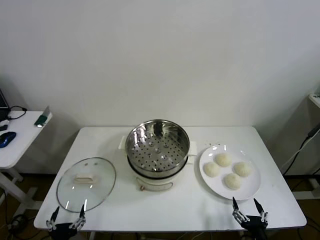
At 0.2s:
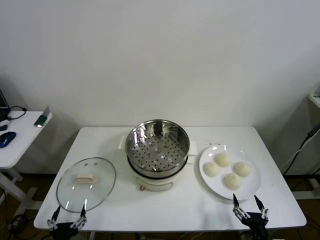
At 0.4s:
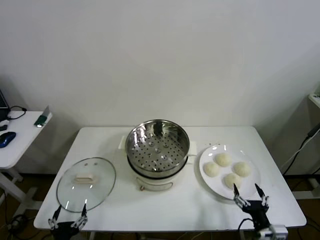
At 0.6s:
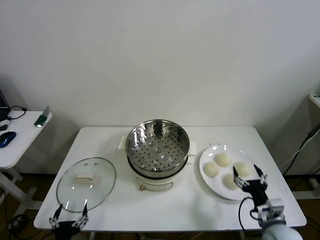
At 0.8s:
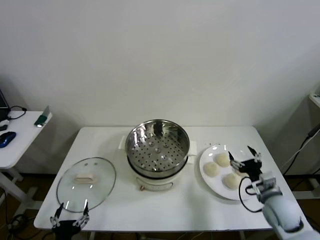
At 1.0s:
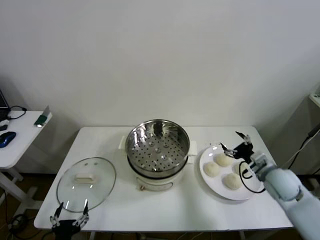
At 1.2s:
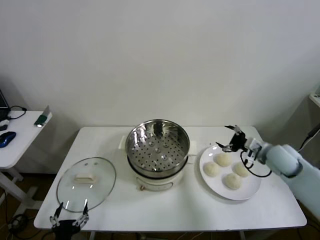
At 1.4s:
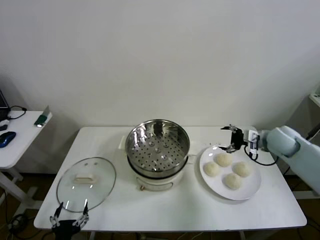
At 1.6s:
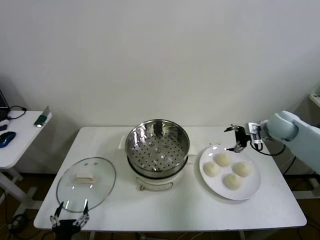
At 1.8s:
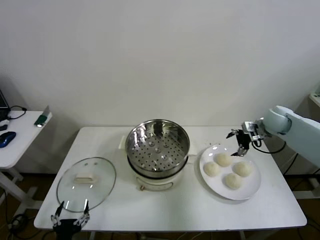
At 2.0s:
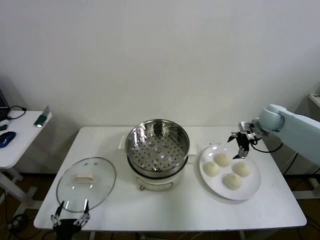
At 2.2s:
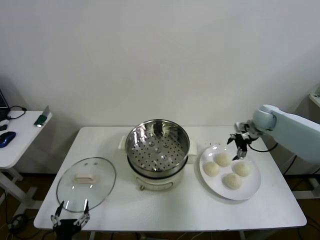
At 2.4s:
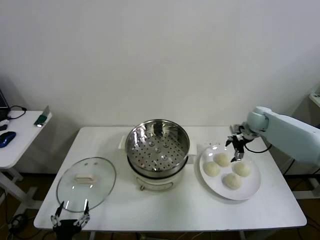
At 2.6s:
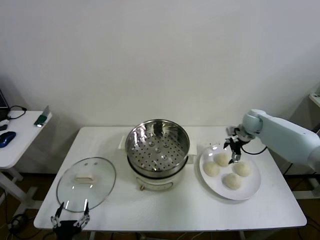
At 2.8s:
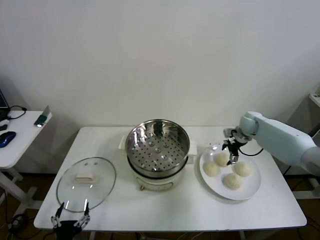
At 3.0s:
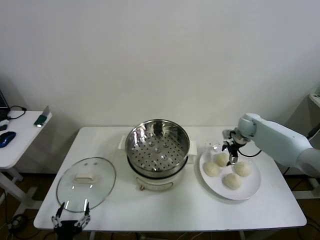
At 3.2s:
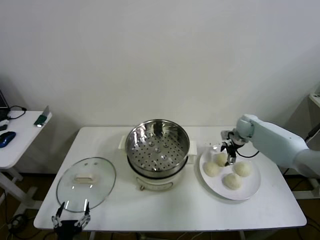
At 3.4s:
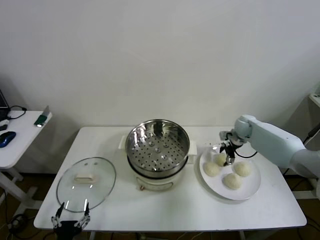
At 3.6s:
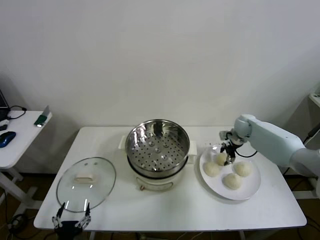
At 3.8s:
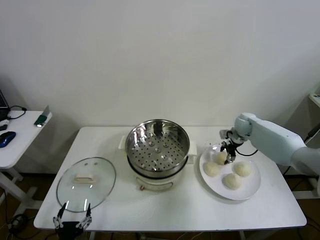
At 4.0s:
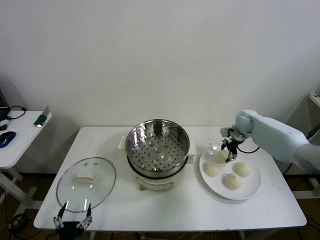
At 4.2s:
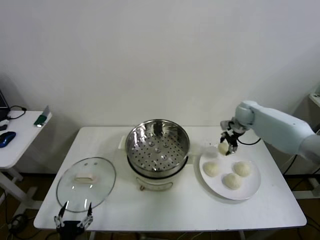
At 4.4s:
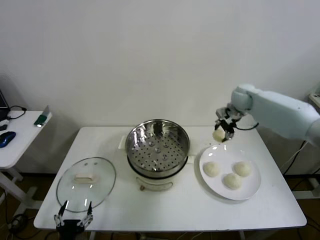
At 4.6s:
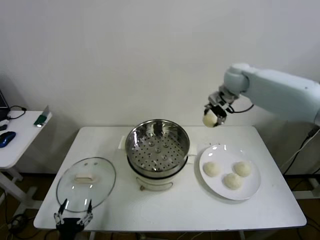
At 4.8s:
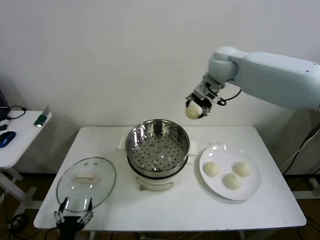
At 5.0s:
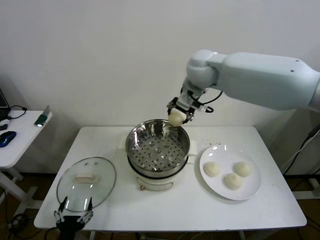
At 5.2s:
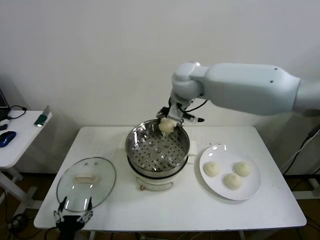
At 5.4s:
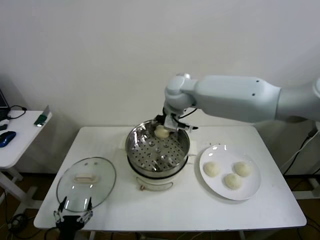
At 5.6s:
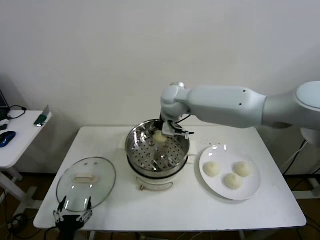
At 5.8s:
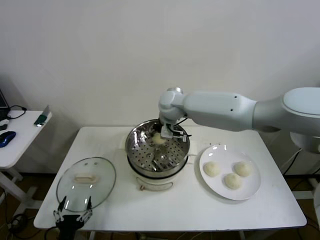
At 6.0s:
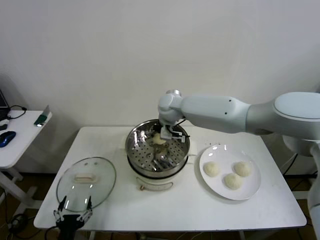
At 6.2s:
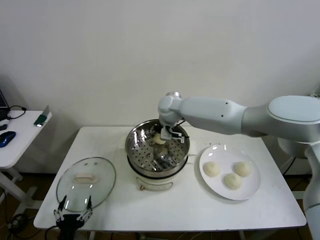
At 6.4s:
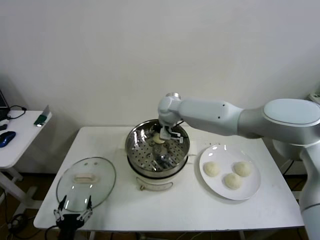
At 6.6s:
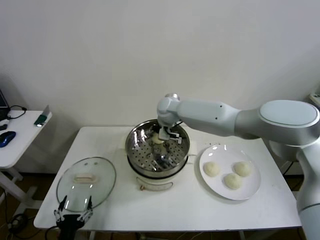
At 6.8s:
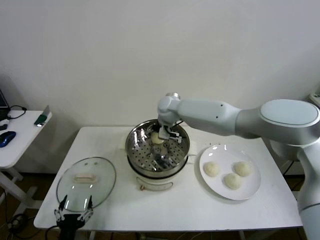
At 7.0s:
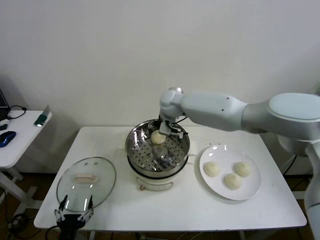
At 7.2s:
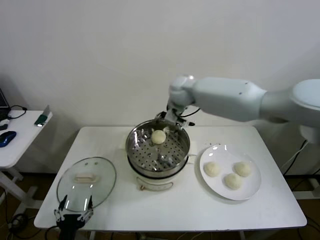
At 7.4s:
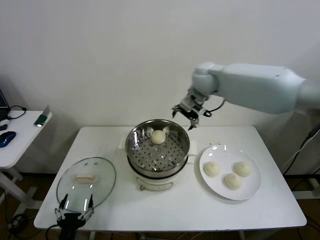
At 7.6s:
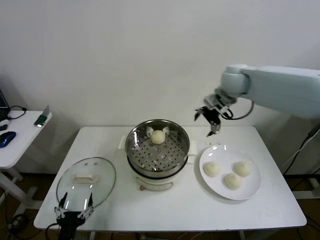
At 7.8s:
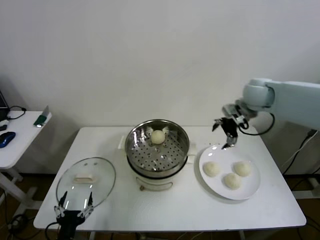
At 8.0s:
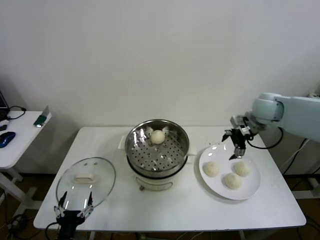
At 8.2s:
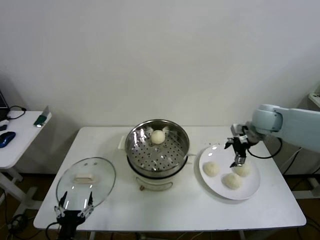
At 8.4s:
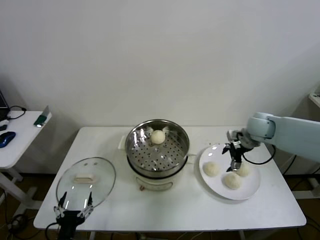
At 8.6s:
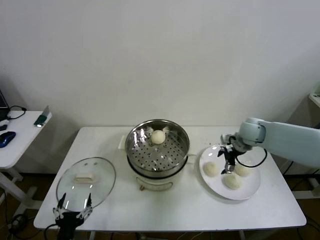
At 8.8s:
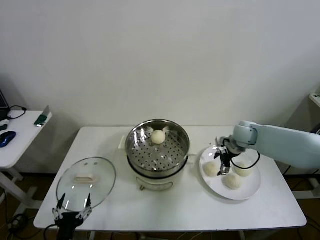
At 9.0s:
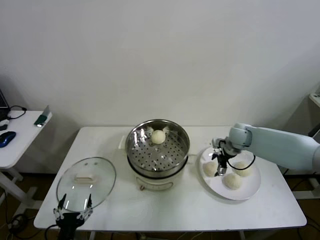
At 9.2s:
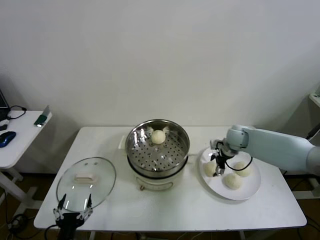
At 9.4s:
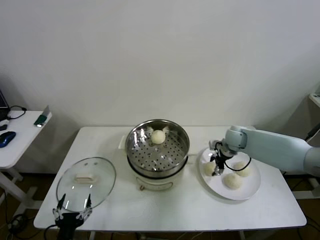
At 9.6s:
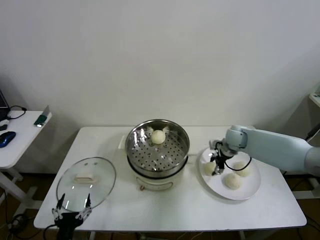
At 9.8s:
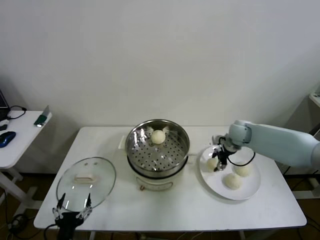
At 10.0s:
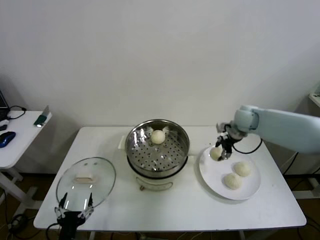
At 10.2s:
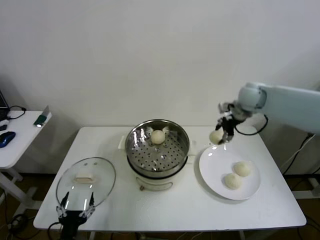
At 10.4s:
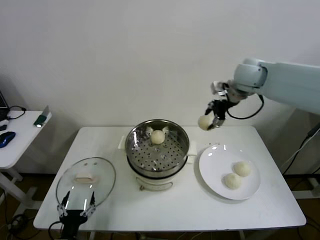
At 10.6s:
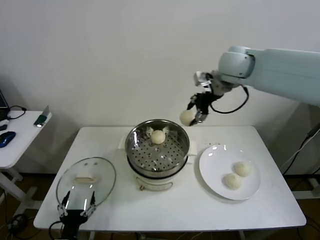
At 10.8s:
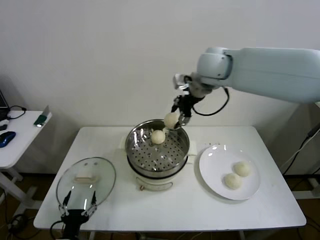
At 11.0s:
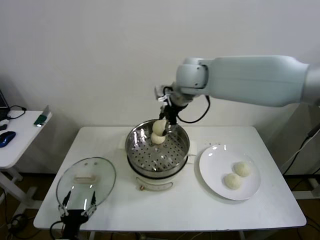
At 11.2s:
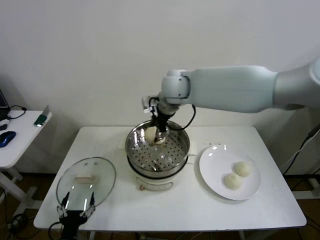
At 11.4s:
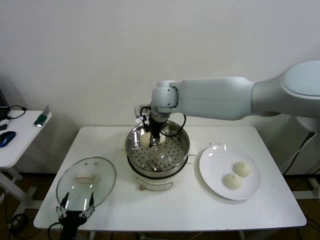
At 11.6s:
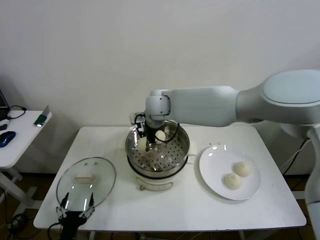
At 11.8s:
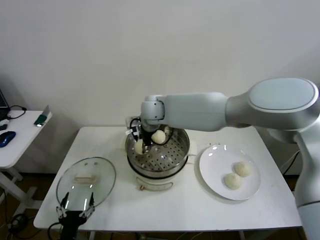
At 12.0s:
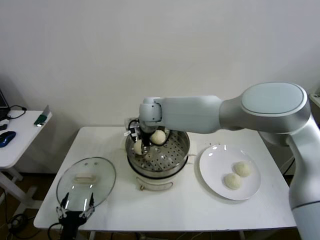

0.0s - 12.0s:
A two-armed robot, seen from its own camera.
Step, 0.0s - 3.4s: Grasp the baozi in the plate with right gripper.
Step, 3.6s - 7.0s: Place the baozi on the steamer with right gripper.
Step, 7.2s - 9.6s: Grasp the baozi in the plate with right gripper.
1.6s - 3.0s: The right gripper goes some 10 cm downward and forward.
3.0s - 4.4s: The right gripper travels upward and to the left by roughly 20 cm, and closes up.
4.4s - 6.0s: The right gripper shifts about 25 cm to the left.
6.0s - 7.6s: The right gripper shifts about 25 cm to the right, and opens its fingers.
7.6s - 9.0s: The right gripper goes approximately 20 cm downward.
9.0s - 10.4s: The right gripper is displaced upward by roughly 30 cm, and closes.
10.4s - 12.0s: The right gripper travels to the left and downward by roughly 30 cm.

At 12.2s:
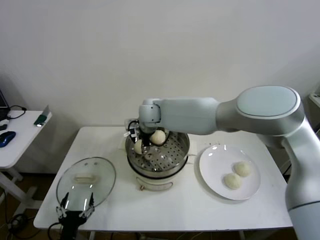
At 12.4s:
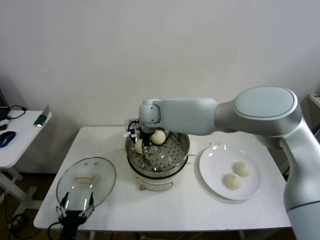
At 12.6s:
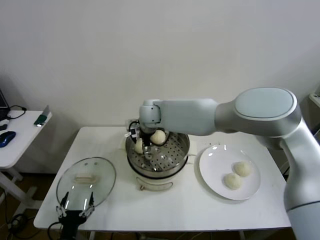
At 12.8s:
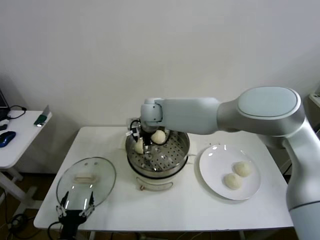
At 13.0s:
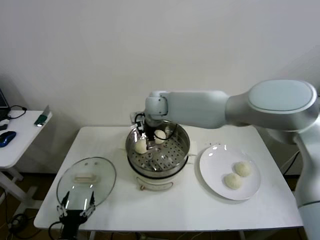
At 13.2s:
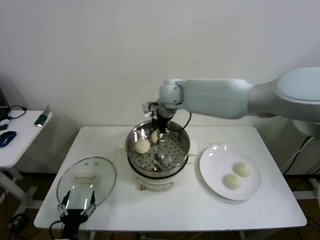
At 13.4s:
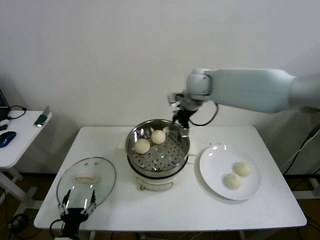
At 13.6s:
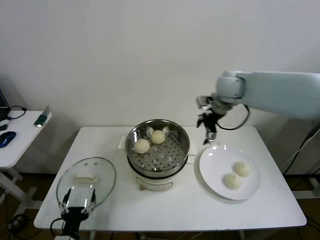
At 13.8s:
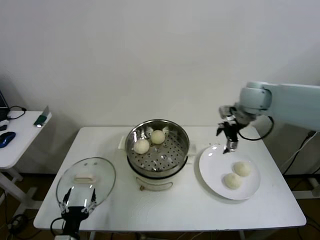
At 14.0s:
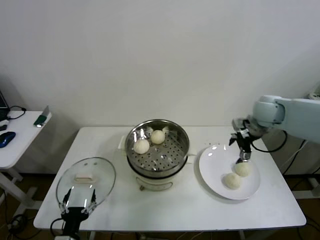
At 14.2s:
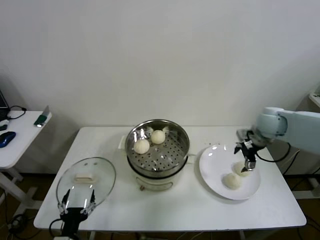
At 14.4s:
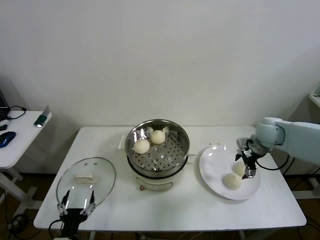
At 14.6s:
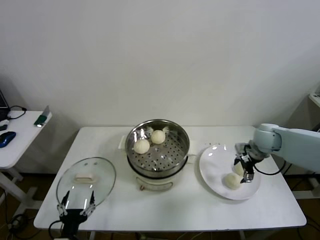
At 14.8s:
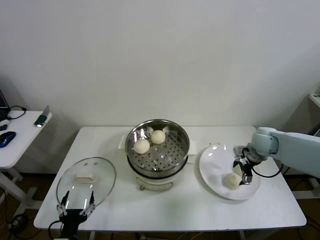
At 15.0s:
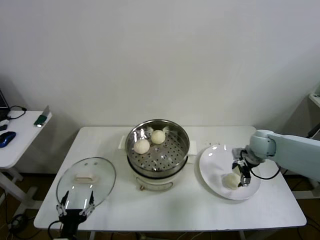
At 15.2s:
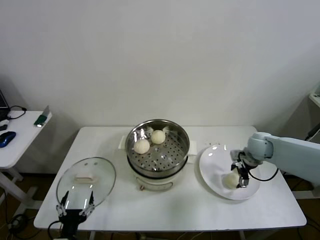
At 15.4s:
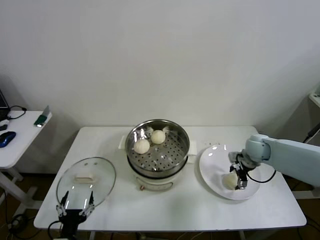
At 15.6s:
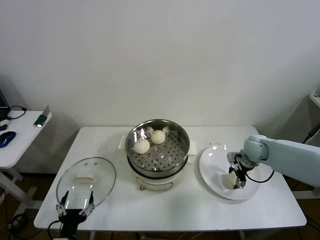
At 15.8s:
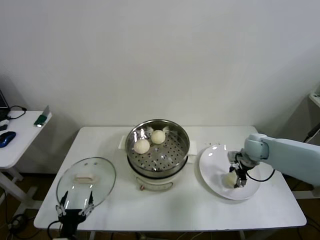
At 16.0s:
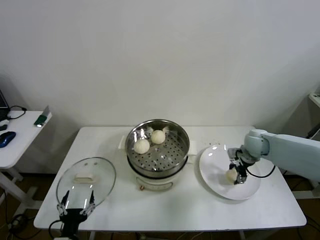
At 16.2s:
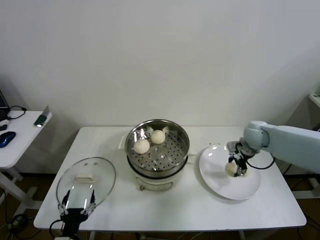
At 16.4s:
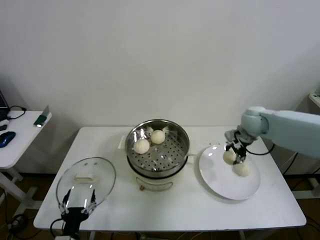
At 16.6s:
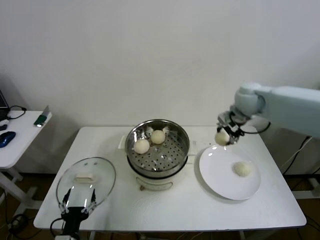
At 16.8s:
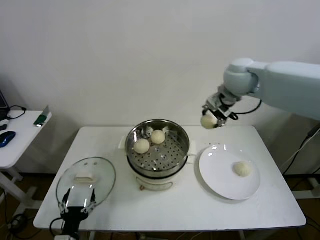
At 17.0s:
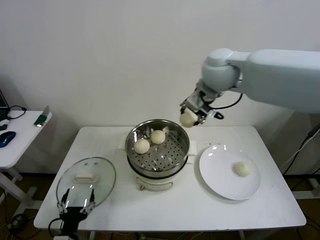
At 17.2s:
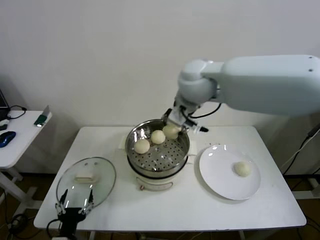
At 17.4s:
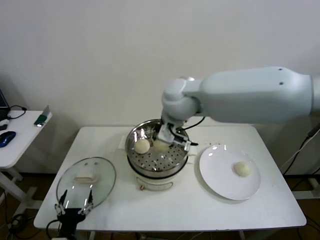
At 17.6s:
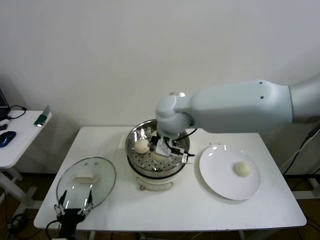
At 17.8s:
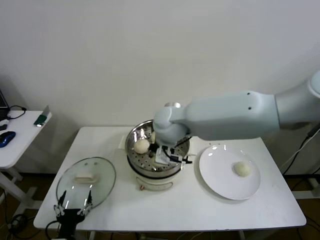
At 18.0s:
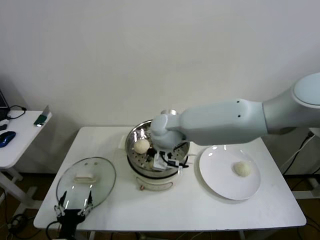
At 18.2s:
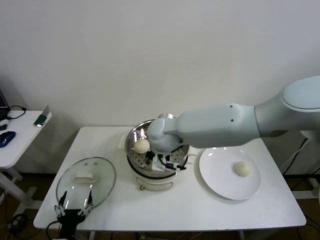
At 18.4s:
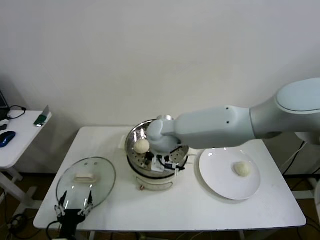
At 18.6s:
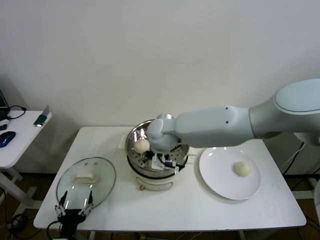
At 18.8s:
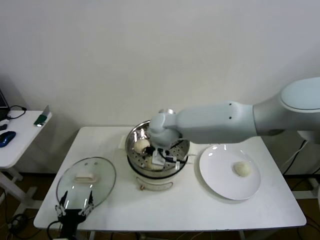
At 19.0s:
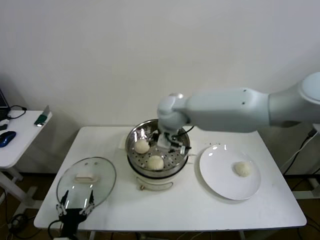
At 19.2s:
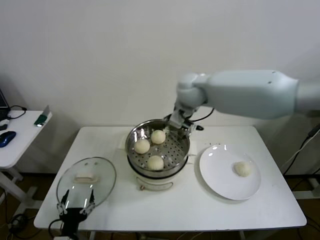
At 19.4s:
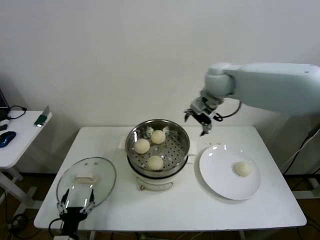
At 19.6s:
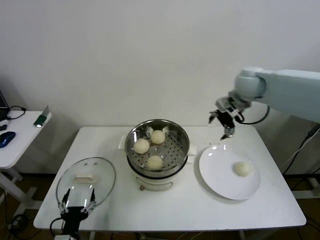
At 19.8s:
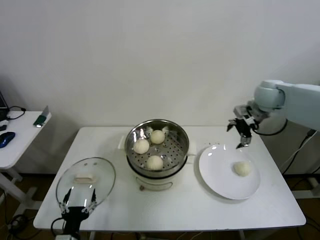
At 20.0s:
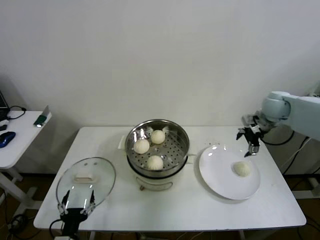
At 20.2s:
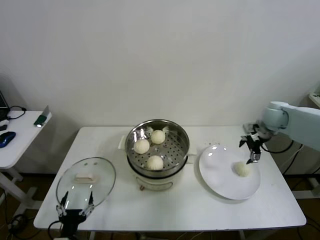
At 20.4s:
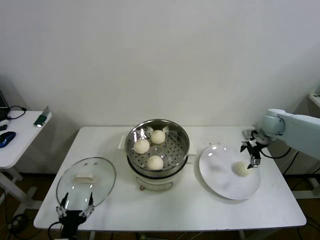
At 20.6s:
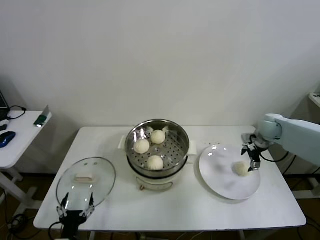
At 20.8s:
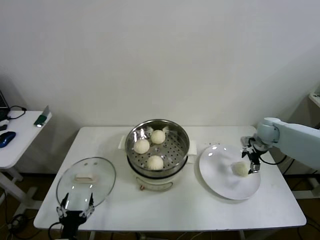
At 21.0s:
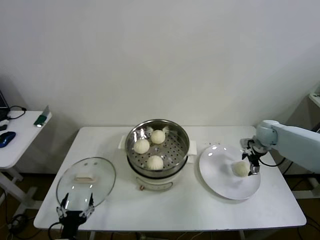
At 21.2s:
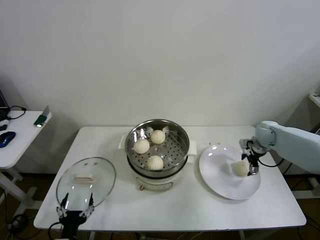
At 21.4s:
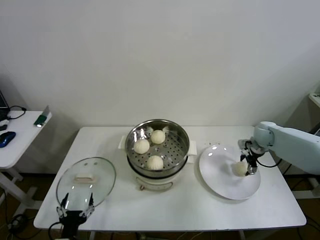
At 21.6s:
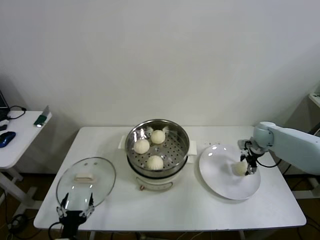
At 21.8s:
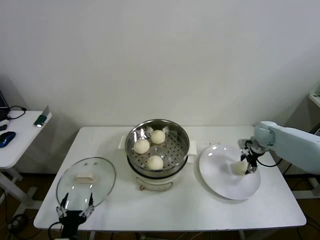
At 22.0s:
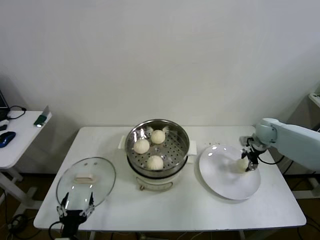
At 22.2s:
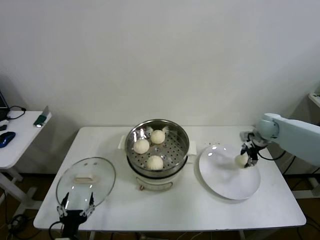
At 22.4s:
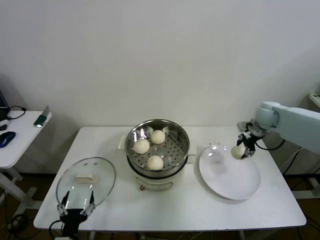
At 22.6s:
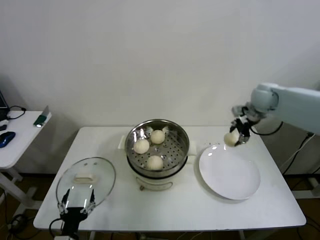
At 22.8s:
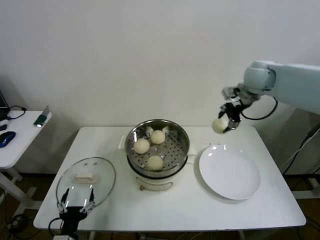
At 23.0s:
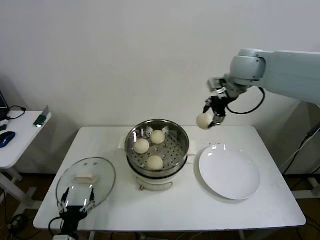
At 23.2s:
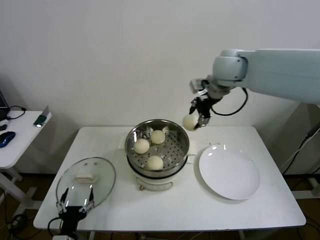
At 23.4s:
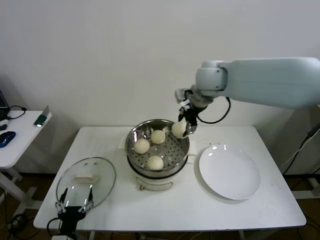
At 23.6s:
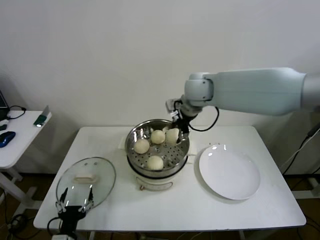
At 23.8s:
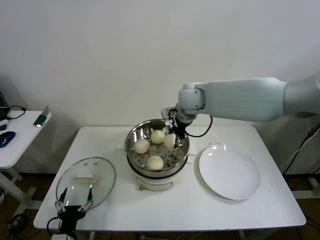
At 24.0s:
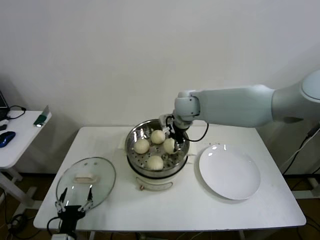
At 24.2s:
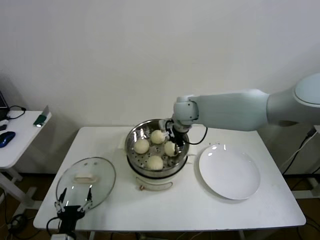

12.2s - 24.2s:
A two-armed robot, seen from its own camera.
Step, 13.0s - 15.6s: Grasp the baozi in the plate with right gripper.
Step, 15.8s - 18.8s: Place the baozi on the steamer with right gripper.
Step, 19.0s - 21.6s: Grasp the baozi in the plate with right gripper.
12.2s - 13.8s: The right gripper shifts some 35 cm to the right, and opens.
13.8s - 15.2s: The right gripper heads downward, covering roughly 20 cm.
15.2s - 16.6s: The right gripper moves upward and to the left, about 25 cm, and closes its fingers.
16.6s - 18.2s: The right gripper moves to the left, roughly 25 cm.
18.2s - 19.8s: The right gripper is displaced to the right by roughly 35 cm, and opens its fingers.
19.8s - 21.2s: The right gripper moves downward, approximately 20 cm.
21.2s - 22.6s: The right gripper is displaced upward and to the left by roughly 20 cm, and closes up.
22.6s - 24.2s: The right gripper heads to the left, covering approximately 25 cm.
